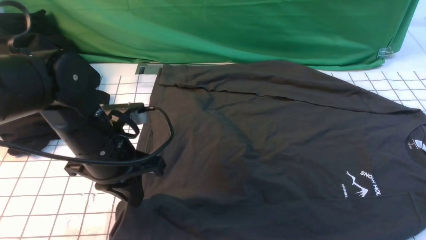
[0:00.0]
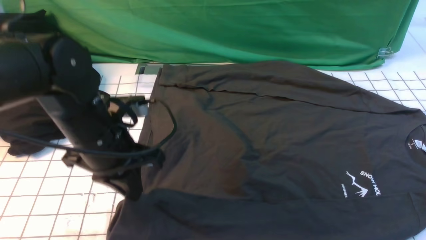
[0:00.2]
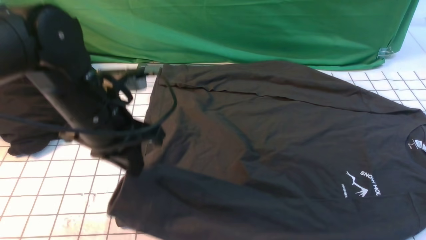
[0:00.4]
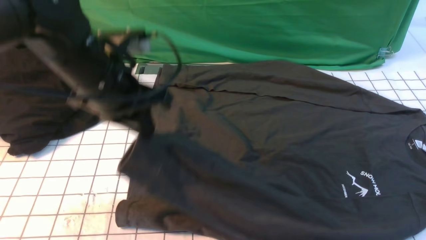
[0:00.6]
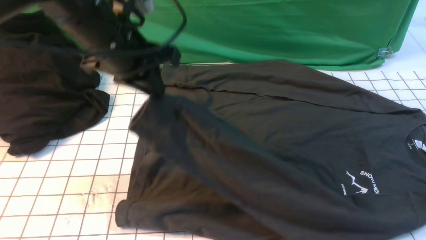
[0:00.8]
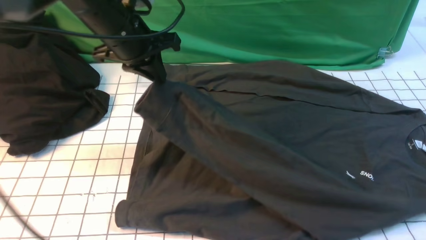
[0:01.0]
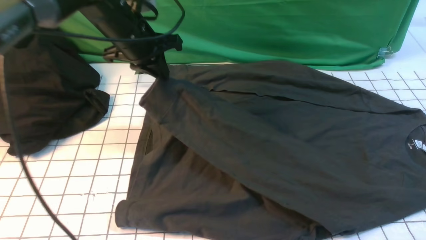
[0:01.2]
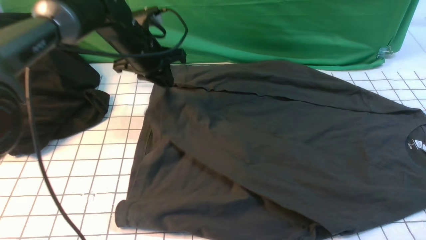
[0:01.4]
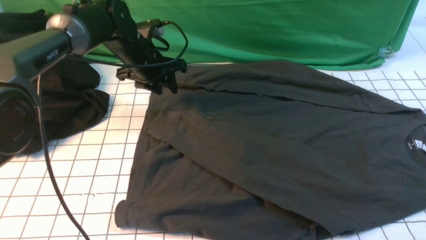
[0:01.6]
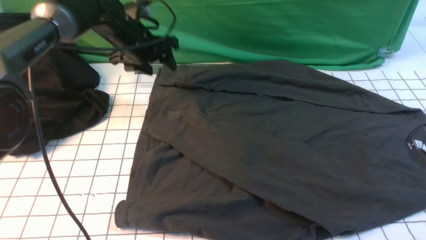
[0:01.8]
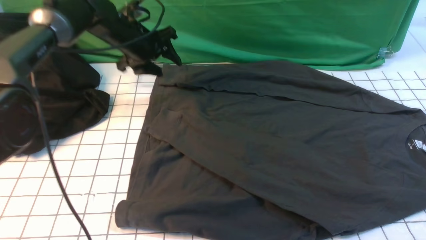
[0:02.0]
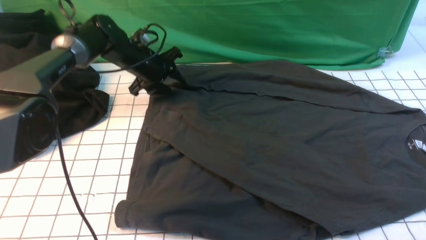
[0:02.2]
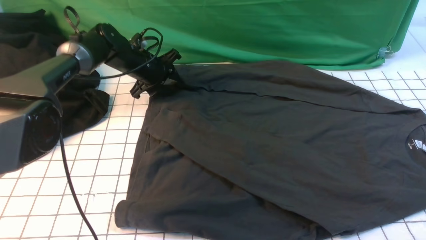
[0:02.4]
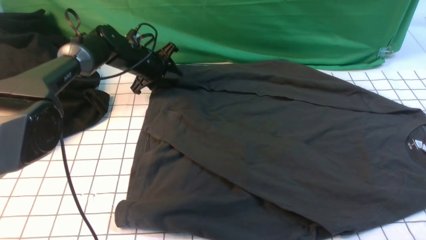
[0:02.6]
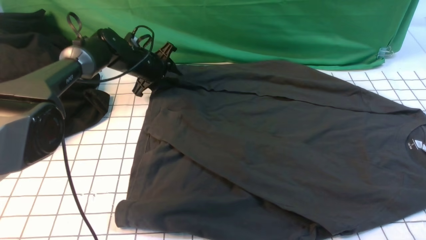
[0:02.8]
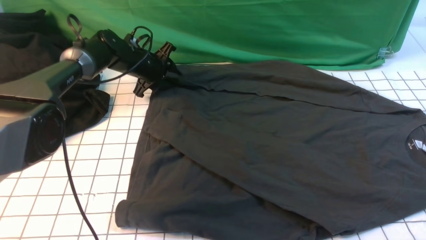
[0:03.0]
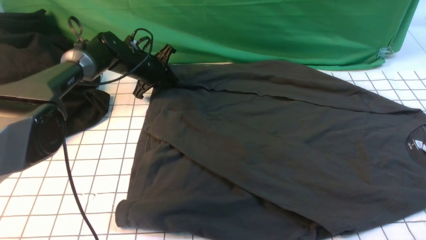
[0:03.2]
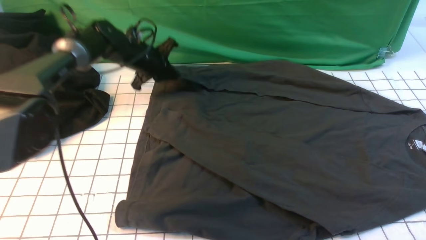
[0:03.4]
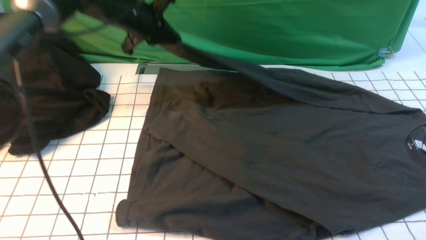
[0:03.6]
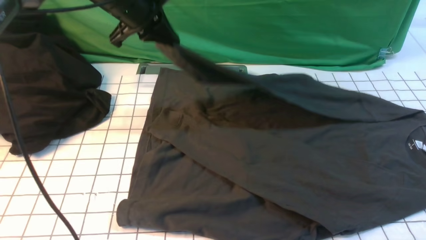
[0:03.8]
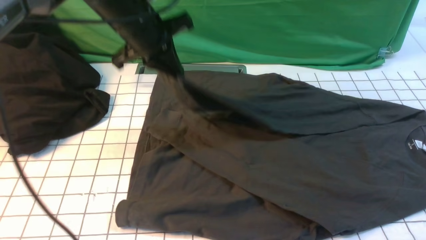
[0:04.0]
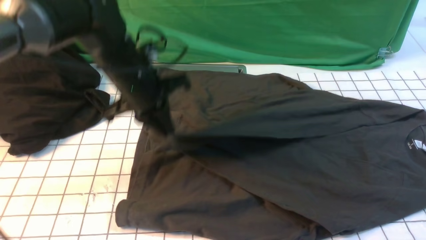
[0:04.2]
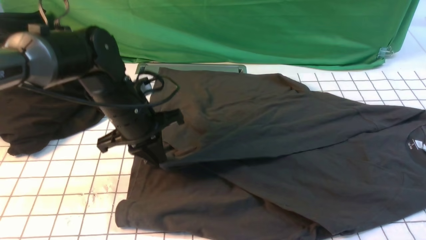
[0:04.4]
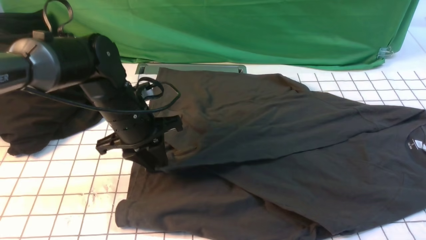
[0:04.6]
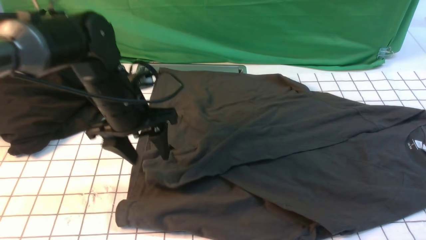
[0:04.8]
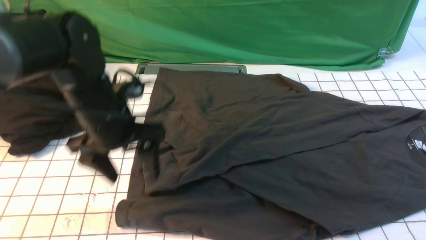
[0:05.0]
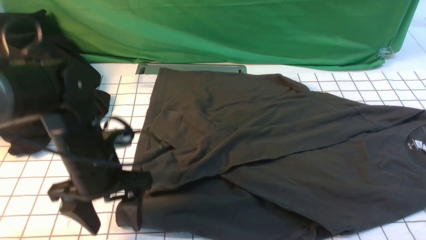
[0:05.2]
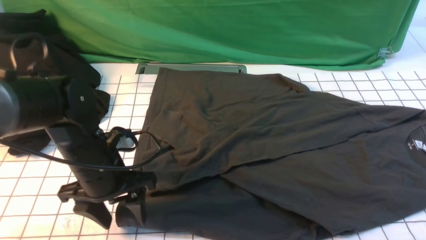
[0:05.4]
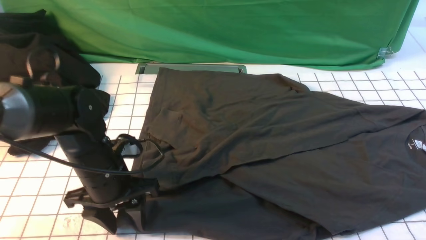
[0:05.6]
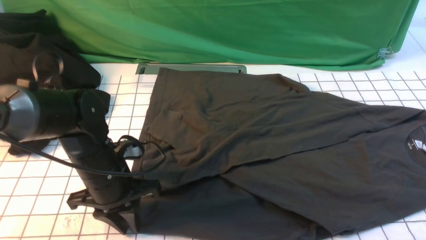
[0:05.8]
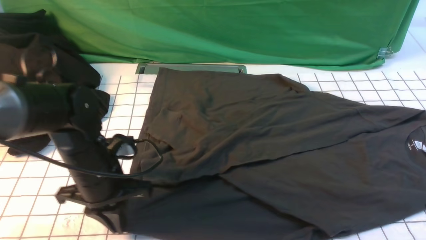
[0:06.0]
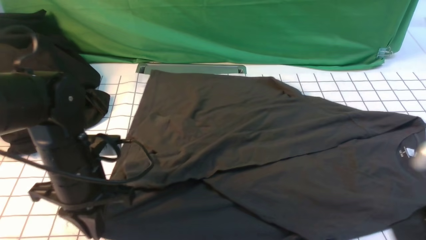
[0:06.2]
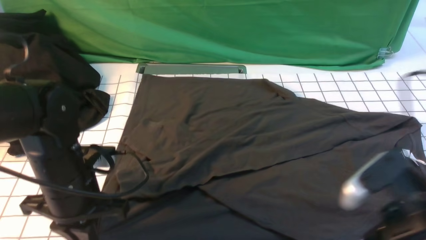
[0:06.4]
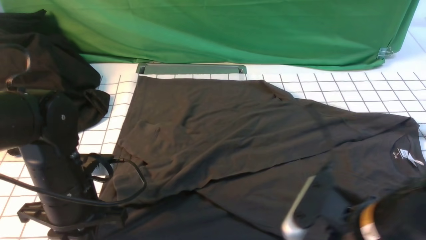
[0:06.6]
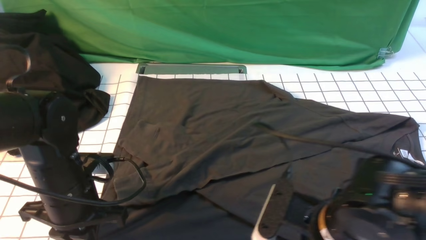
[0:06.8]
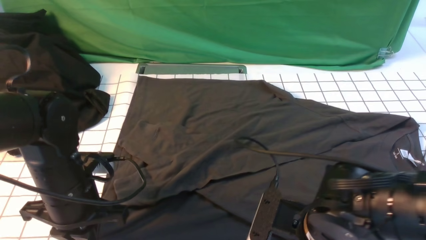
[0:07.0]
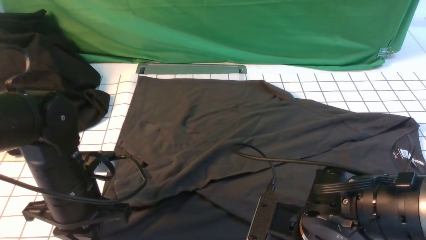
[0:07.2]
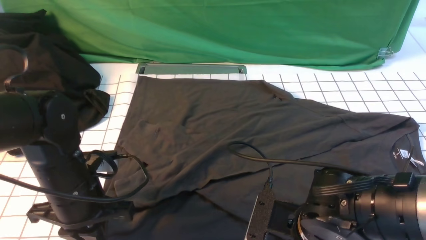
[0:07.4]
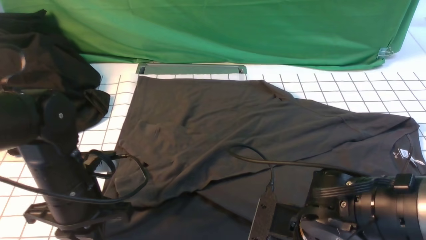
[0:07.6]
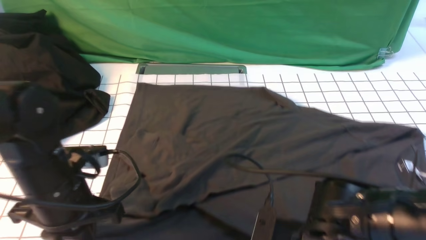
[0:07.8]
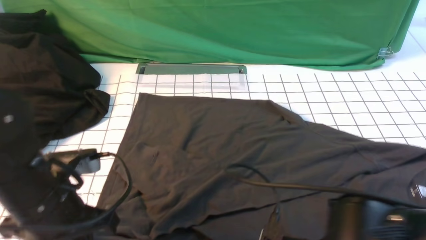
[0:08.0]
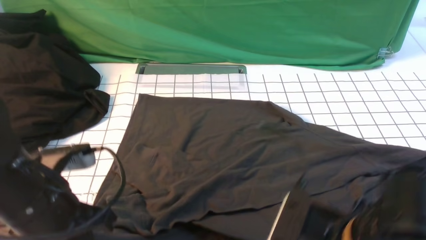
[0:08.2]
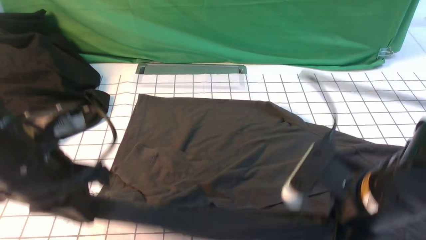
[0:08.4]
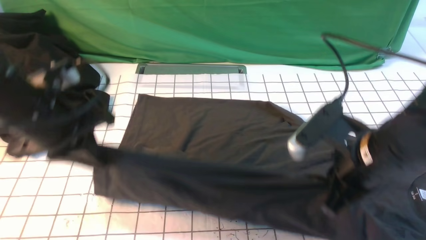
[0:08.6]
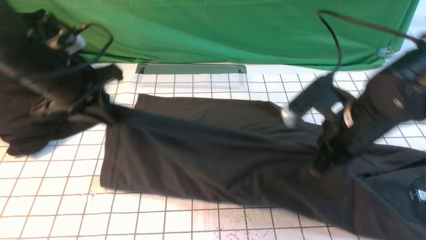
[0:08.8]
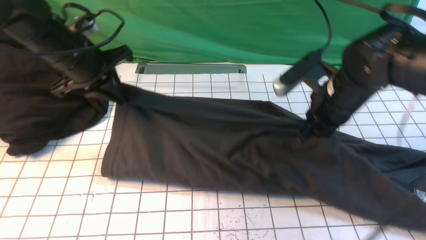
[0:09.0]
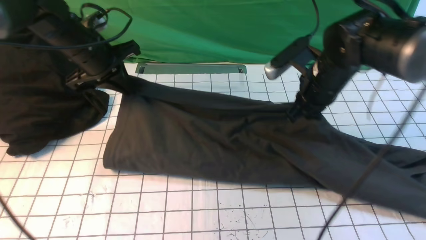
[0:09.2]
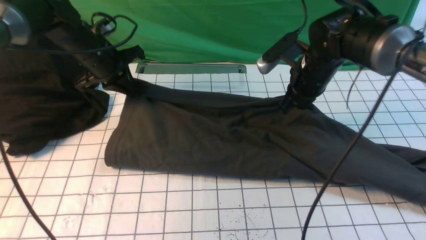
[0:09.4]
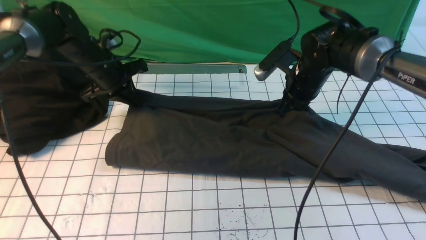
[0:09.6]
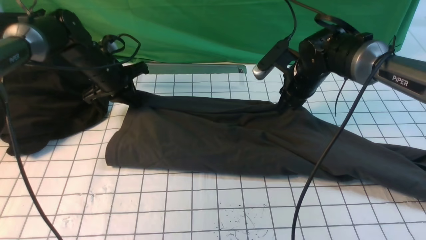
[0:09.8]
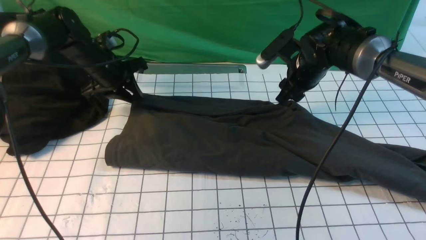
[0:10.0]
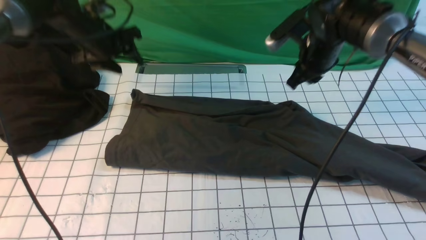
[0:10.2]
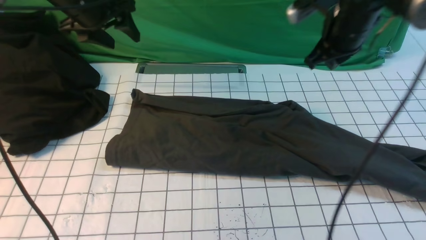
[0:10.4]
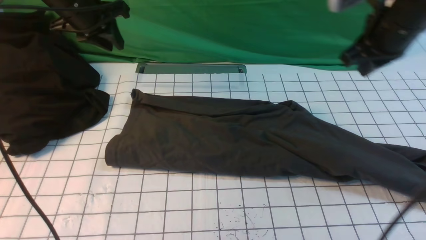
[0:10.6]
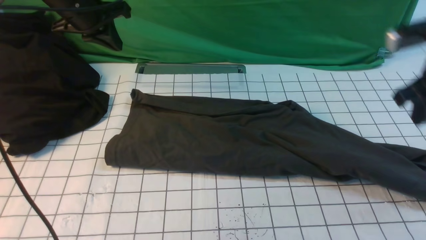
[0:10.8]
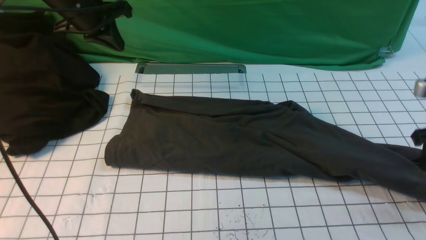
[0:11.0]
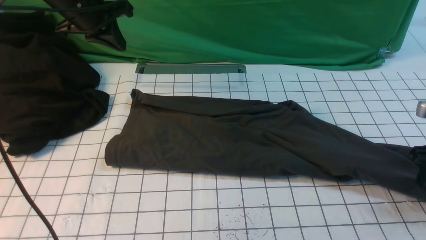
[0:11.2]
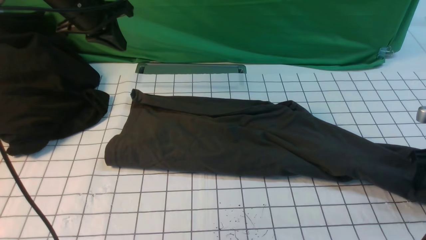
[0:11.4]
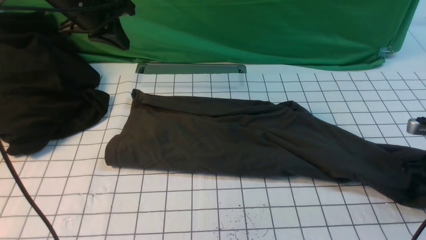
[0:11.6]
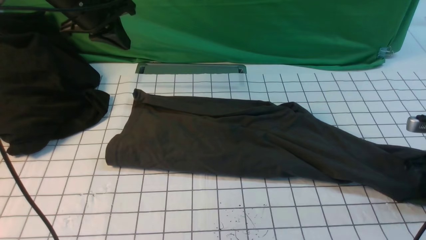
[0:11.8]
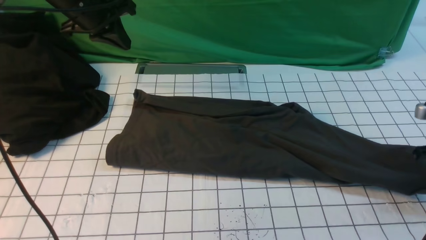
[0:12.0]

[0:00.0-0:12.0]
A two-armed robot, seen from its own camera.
Step, 0:01.6 to 0:03.2: use the left arm to clamp the cuff farthest from it.
Step, 0:03.4 to 0:04.8: use the left arm to drag and drop the cuff onto the cuff closest to the left arm.
Step, 0:05.0 to 0:07.4: use both arms simultaneously to clamp the lower edge of the clothing fabric.
Step, 0:07.6 to 0:10.0: use both arms to drag the lower edge of the fabric forward and fold it over the upper edge.
0:00.0 to 0:01.6: The left gripper is displaced forward by about 20 cm, and opens up.
0:01.6 to 0:03.0: The left gripper is displaced downward and forward by roughly 10 cm.
0:03.0 to 0:04.4: The left gripper travels backward by roughly 20 cm.
0:04.4 to 0:06.0: The left gripper shifts approximately 10 cm backward, and opens and closes again.
0:06.0 to 0:07.6: The right gripper goes roughly 20 cm to the left and downward, and closes.
0:07.6 to 0:09.0: The grippers both shift forward and upward by about 20 cm.
0:09.0 to 0:10.4: The right gripper heads forward and upward, covering roughly 10 cm, and opens and closes again, while the left gripper goes about 10 cm forward, reaches some 10 cm downward, then returns, and opens up.
0:10.4 to 0:12.0: The right gripper moves to the right, downward and backward, roughly 25 cm, and opens and closes again, while the left gripper closes up.

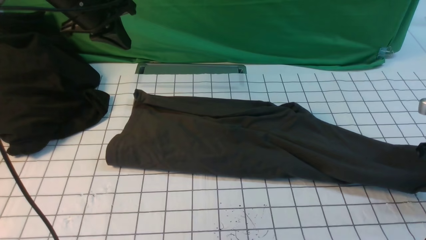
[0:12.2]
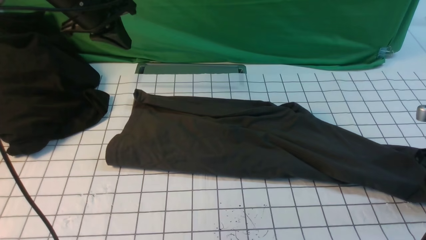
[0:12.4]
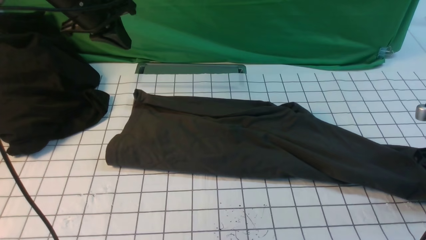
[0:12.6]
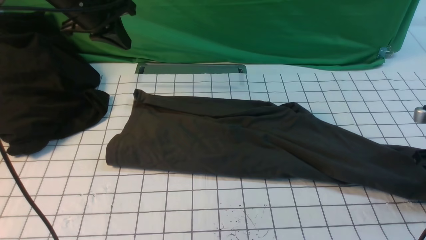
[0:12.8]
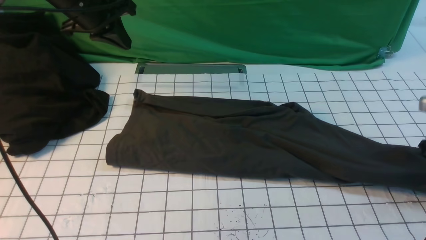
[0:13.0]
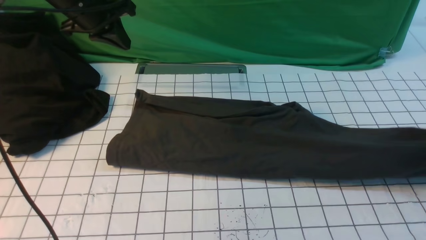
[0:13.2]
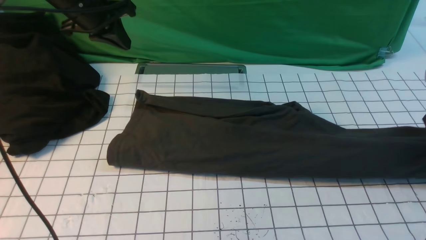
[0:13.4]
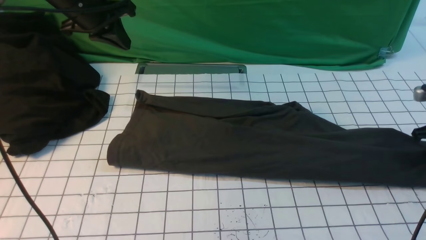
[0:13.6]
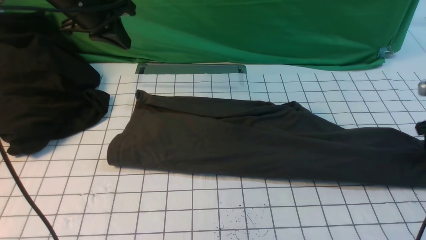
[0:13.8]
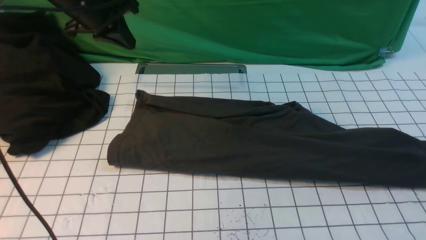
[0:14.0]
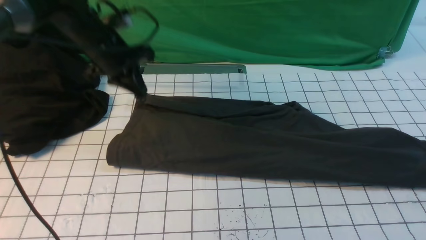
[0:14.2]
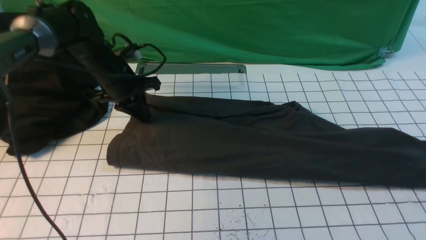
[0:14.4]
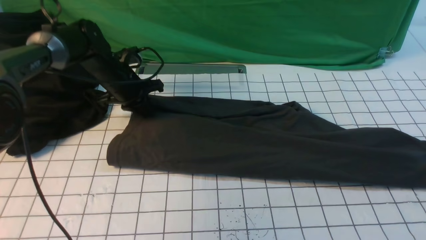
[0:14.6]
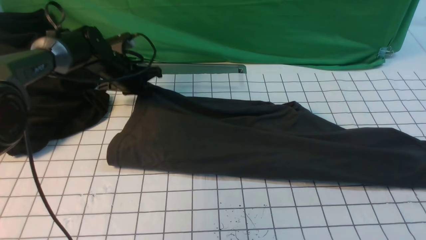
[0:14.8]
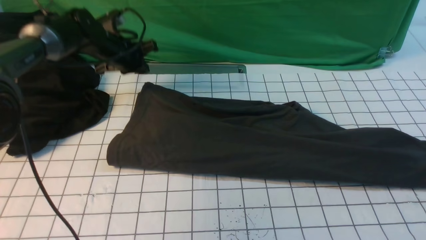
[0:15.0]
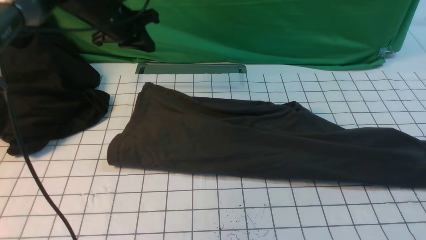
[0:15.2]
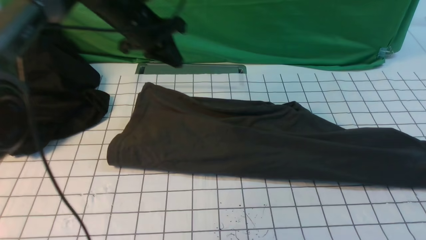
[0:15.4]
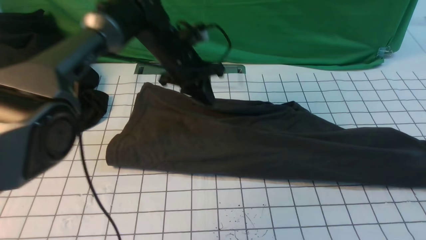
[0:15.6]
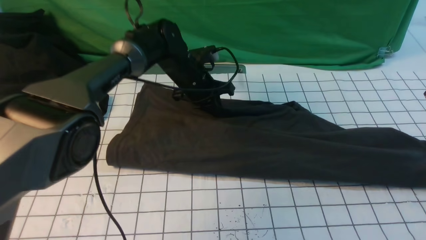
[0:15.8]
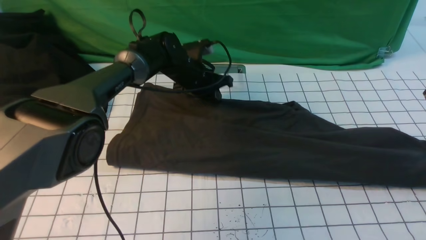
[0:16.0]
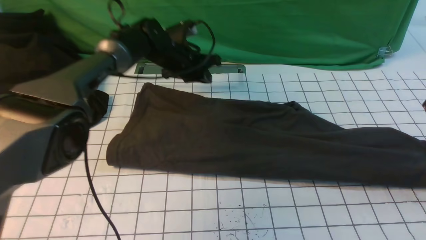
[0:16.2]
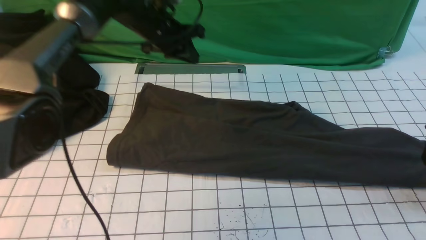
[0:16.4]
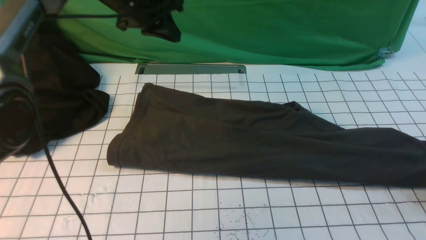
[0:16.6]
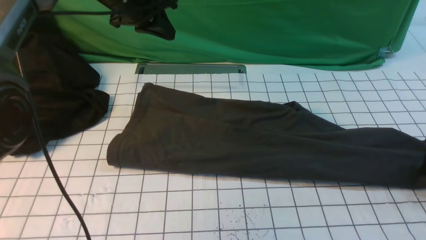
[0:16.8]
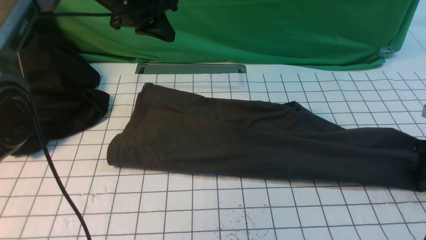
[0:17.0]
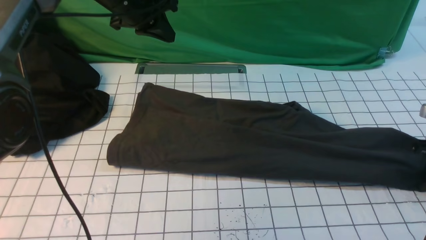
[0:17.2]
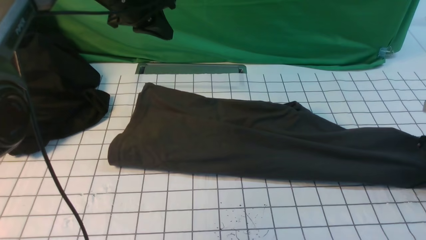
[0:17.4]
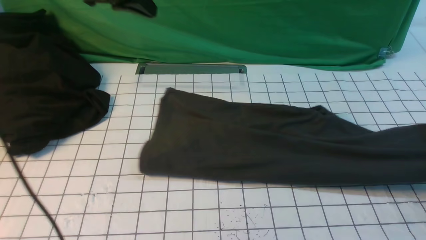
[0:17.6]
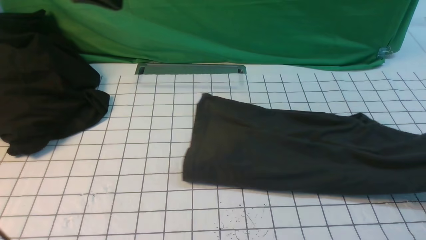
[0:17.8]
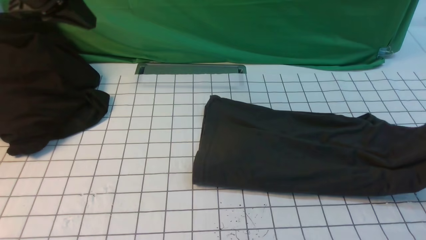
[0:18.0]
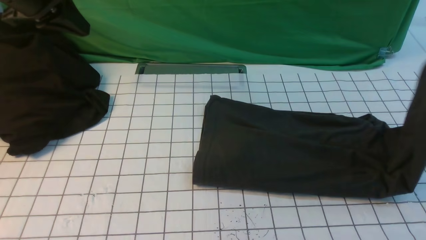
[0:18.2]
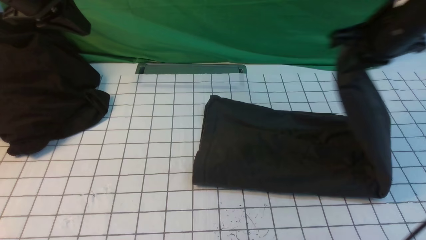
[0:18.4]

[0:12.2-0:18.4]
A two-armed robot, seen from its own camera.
Step, 0:12.2 to 0:17.2: use the right arm to clamp the right edge of the fabric.
0:12.2 to 0:13.8: The right gripper moves forward, some 5 cm, and opens its fingers.
0:13.8 to 0:15.4: The right gripper heads upward, covering some 5 cm, and closes its fingers. The left gripper goes some 10 cm to the right and downward.
0:15.4 to 0:16.8: The left gripper goes roughly 5 cm upward. The right gripper goes roughly 10 cm downward, and opens its fingers.
0:16.8 to 0:18.4: The left gripper shifts roughly 15 cm to the left, backward and upward; the right gripper goes approximately 30 cm to the left and upward, and closes its fingers.
